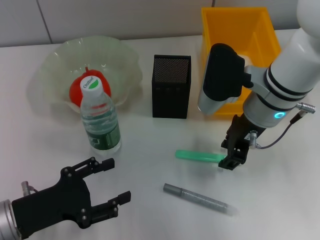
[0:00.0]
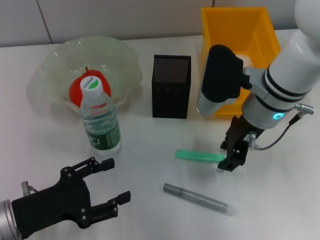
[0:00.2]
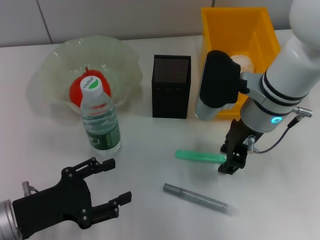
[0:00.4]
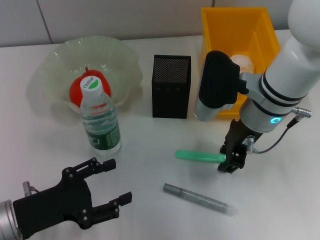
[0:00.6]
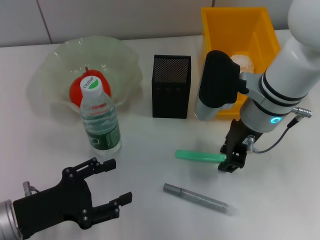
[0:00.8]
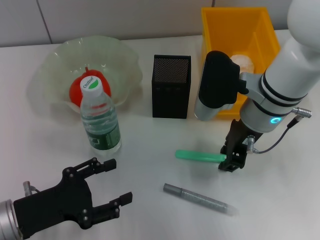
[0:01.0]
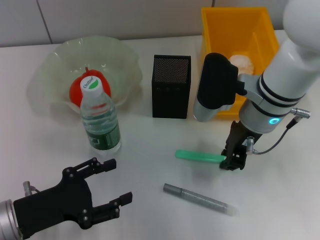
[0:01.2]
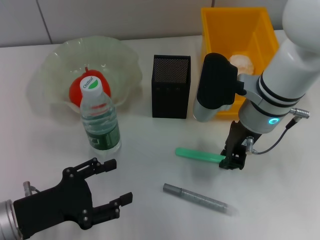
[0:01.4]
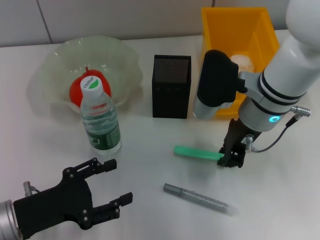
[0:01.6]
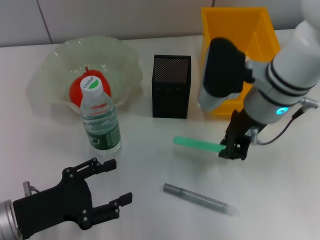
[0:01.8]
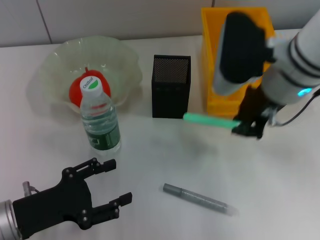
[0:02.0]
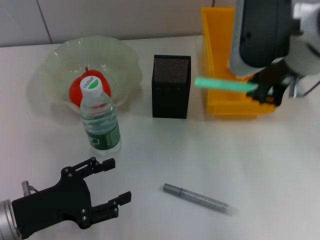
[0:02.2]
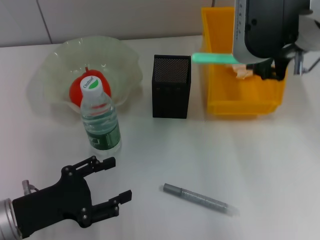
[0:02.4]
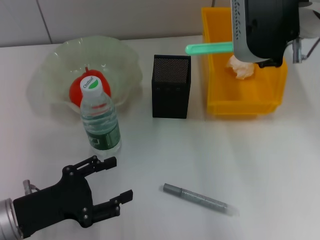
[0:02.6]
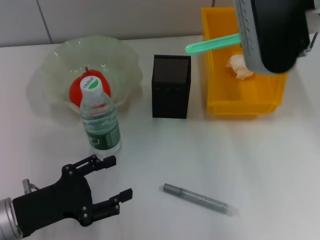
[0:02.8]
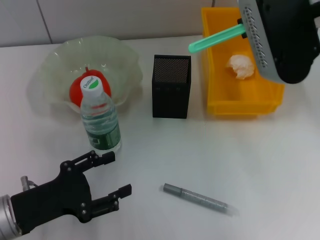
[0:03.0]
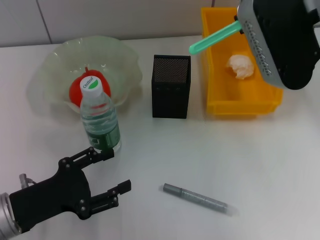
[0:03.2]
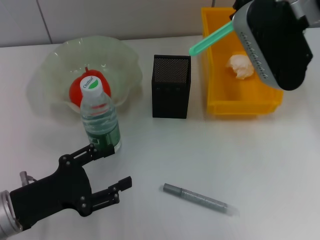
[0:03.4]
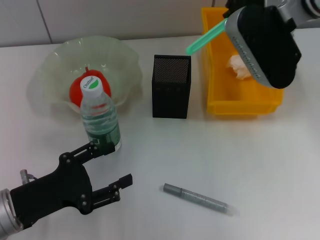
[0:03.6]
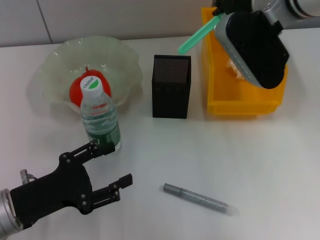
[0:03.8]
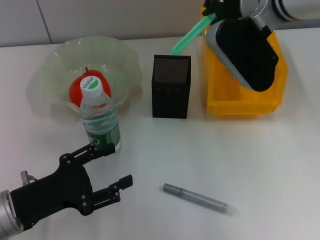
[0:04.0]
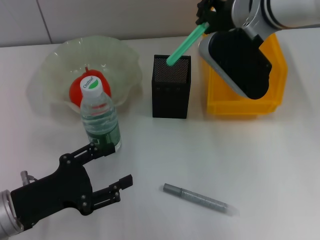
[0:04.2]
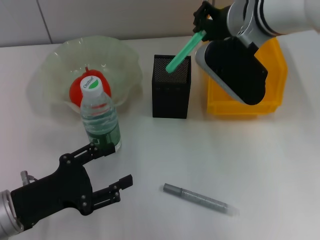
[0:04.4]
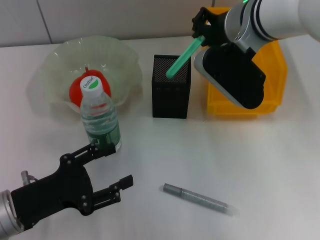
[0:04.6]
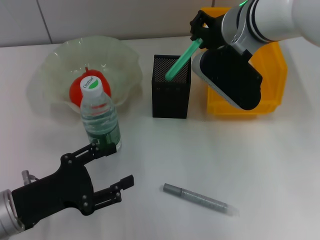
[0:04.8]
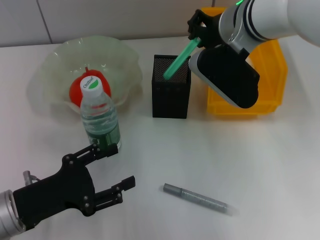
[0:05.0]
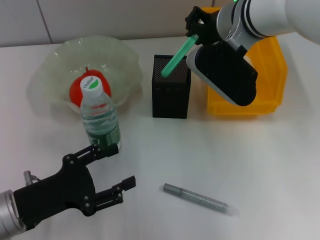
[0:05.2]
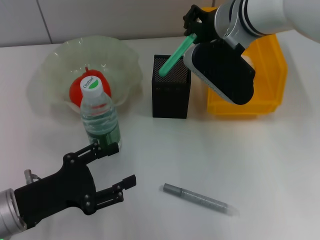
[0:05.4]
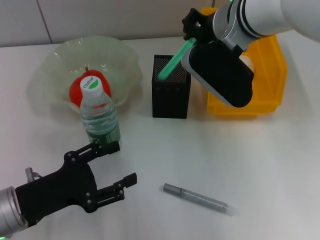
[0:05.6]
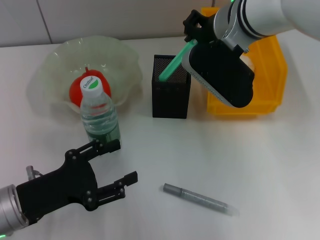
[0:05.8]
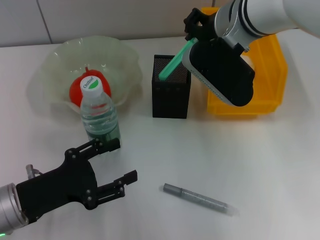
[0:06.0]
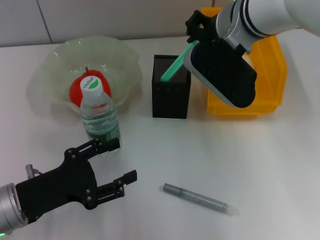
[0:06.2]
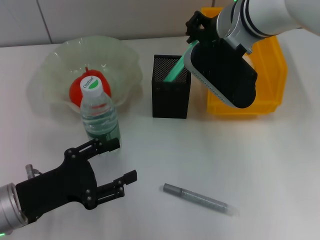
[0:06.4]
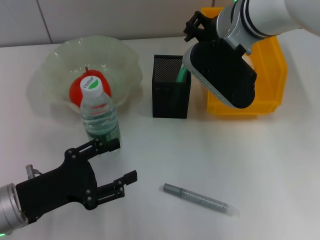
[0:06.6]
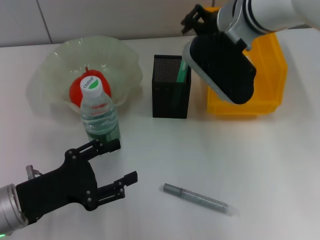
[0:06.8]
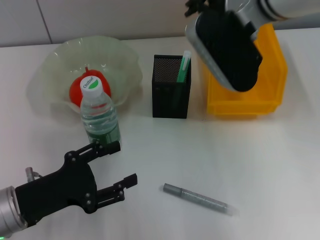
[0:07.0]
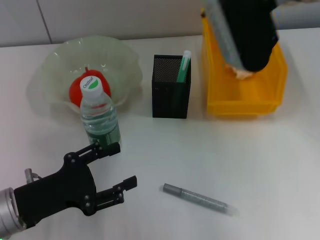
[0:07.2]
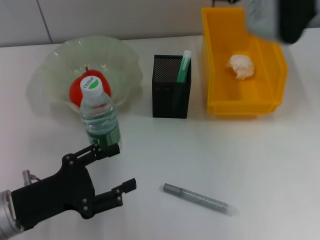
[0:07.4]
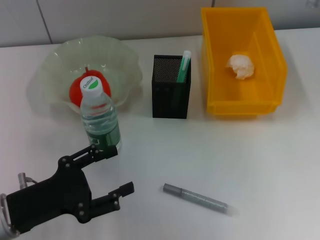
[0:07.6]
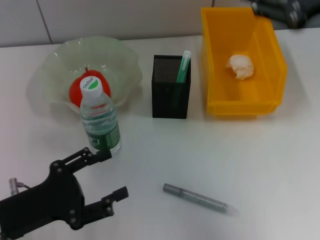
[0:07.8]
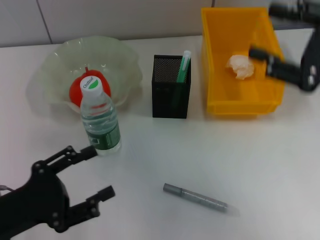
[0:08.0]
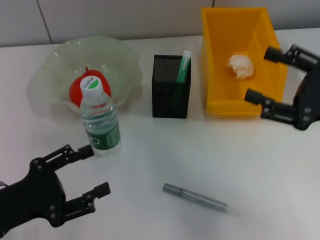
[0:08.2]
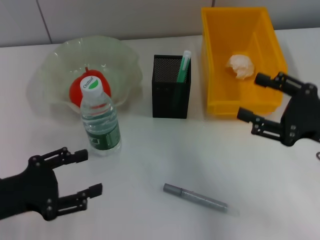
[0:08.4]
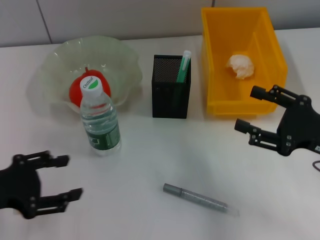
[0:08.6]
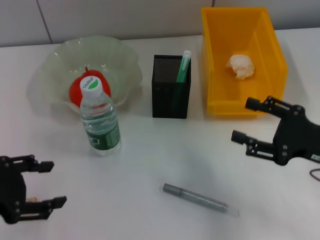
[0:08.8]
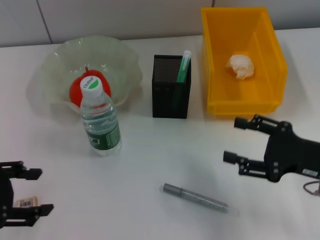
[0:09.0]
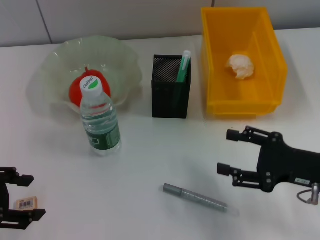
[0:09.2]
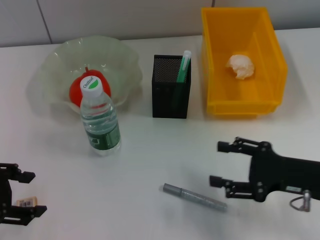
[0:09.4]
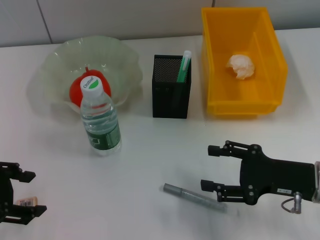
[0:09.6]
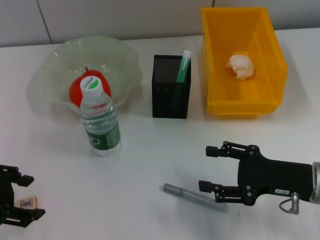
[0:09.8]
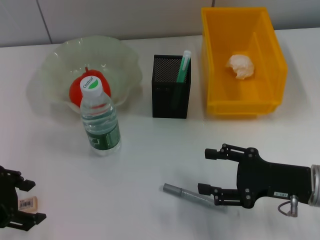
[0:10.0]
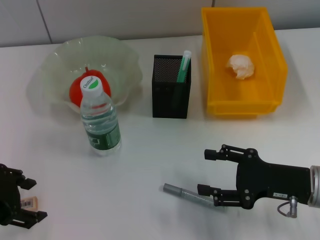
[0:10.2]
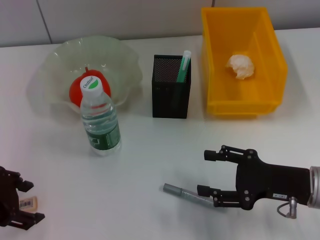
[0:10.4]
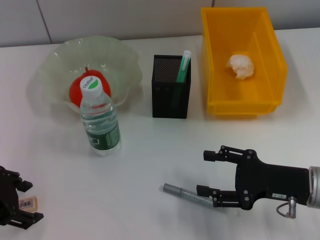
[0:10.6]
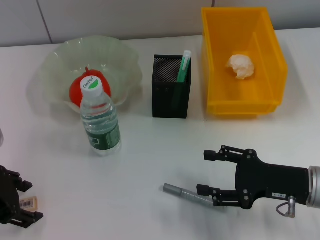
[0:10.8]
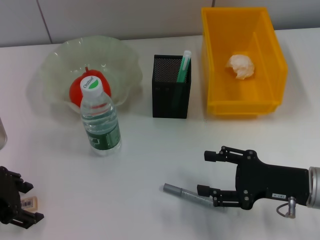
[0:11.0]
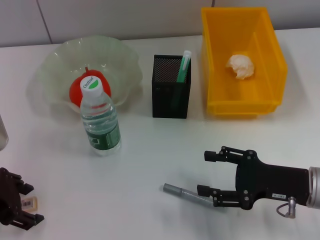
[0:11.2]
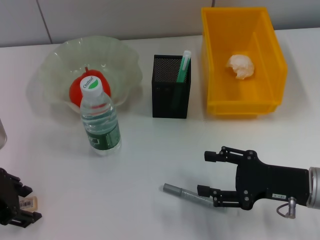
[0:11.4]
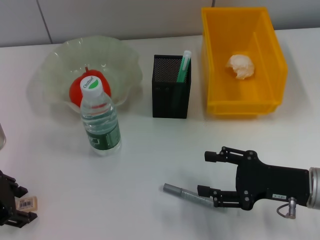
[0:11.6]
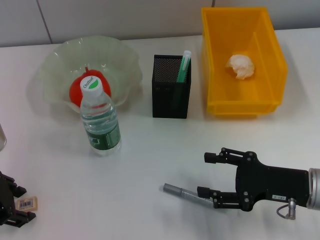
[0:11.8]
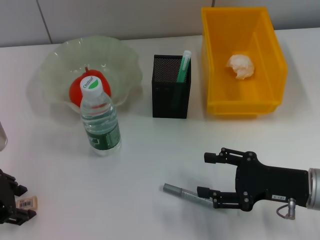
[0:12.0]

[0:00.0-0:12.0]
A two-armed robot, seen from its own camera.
Step, 0:01.6 to 0:06.8: Place the blue utility knife into the pen holder with the right hand.
0:00.0 to 0:01.6: The right gripper closes its fingers.
0:01.6 to 0:03.0: The right gripper heads upward, covering approximately 15 cm.
0:03.0 to 0:04.4: The right gripper heads downward and forward, covering some 10 cm.
0:04.4 to 0:06.0: The grippers stay close to where they were, moving slightly.
0:06.0 to 0:07.6: The right gripper shifts roughly 15 cm upward, to the right and backward, and opens its fingers.
0:07.6 to 0:09.0: The right gripper heads downward, covering some 25 cm. Meanwhile the left gripper moves upward and to the left, roughly 10 cm.
0:09.0 to 0:10.4: The left gripper shifts by some 5 cm.
0:10.4 to 0:12.0: There are only small adjustments of the grippers.

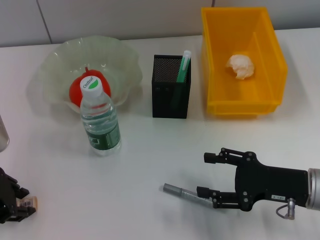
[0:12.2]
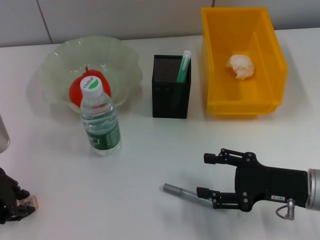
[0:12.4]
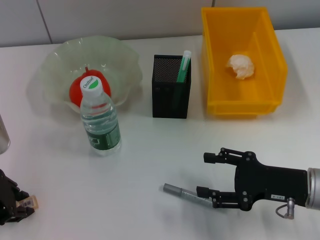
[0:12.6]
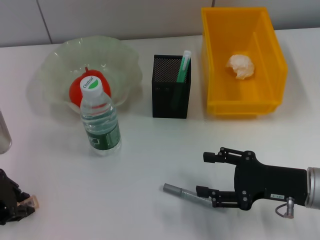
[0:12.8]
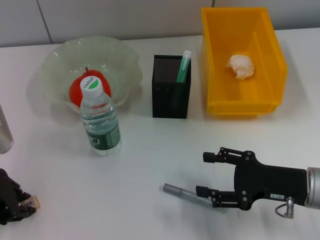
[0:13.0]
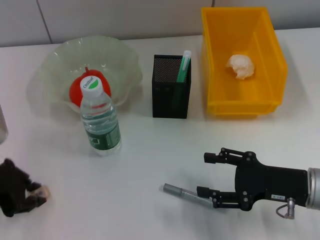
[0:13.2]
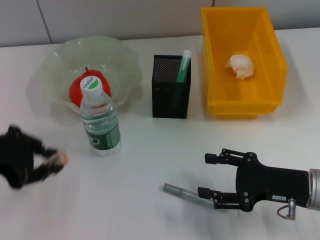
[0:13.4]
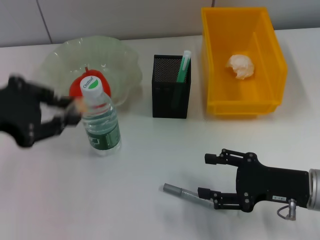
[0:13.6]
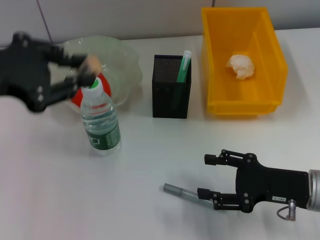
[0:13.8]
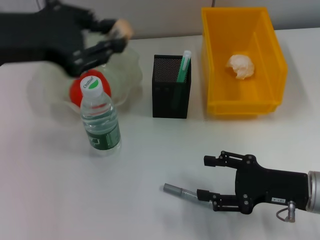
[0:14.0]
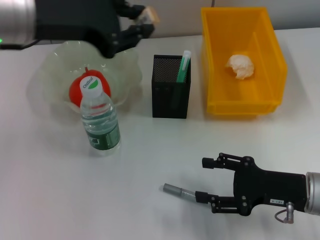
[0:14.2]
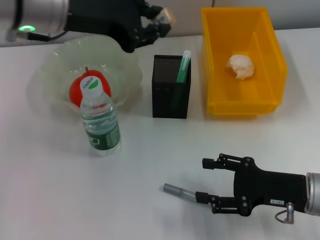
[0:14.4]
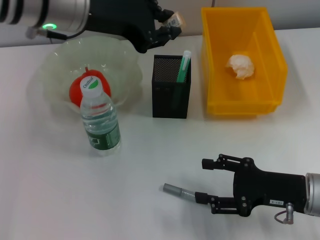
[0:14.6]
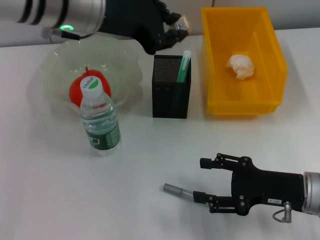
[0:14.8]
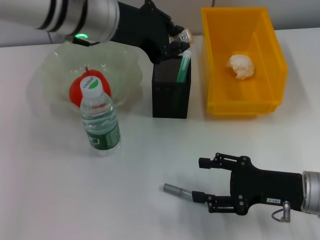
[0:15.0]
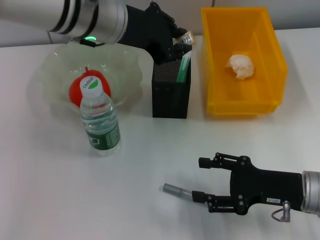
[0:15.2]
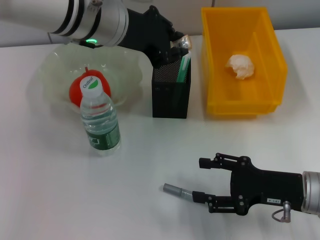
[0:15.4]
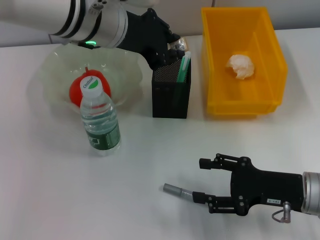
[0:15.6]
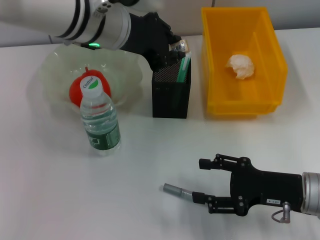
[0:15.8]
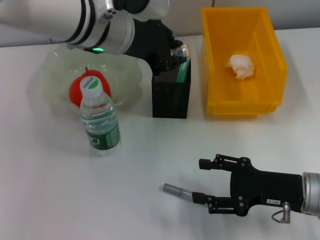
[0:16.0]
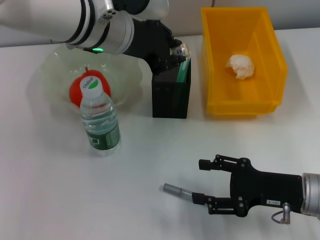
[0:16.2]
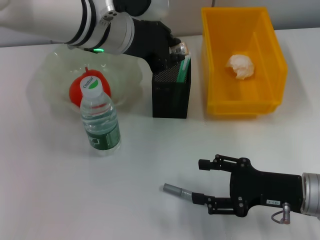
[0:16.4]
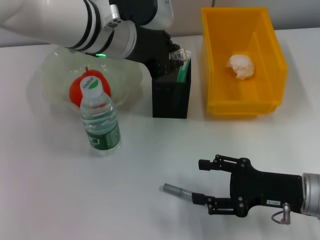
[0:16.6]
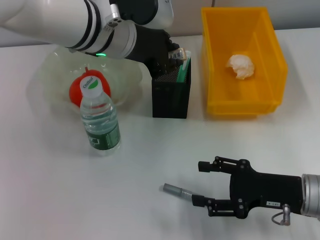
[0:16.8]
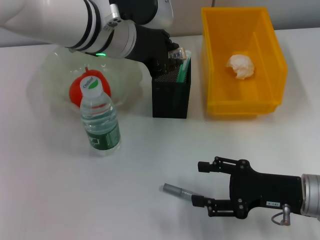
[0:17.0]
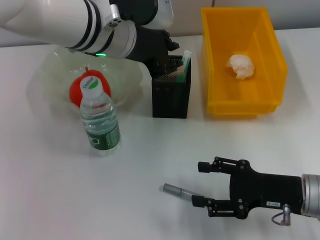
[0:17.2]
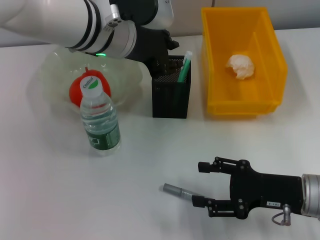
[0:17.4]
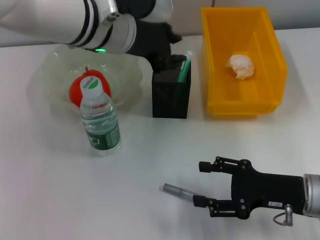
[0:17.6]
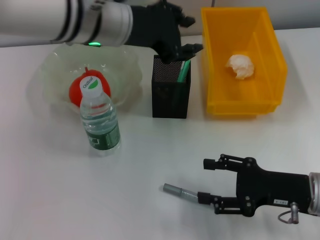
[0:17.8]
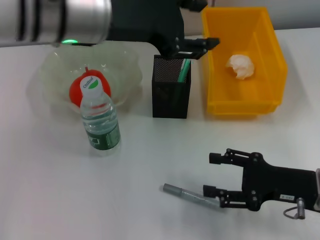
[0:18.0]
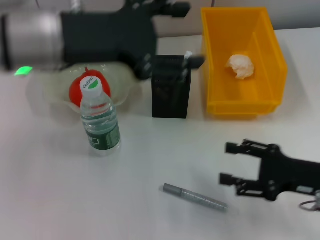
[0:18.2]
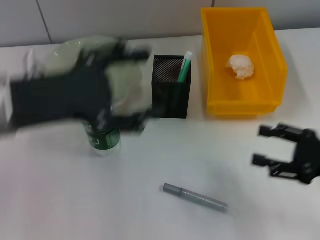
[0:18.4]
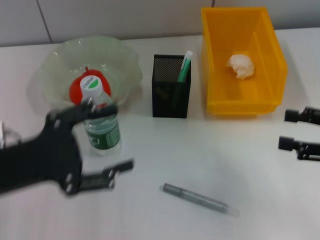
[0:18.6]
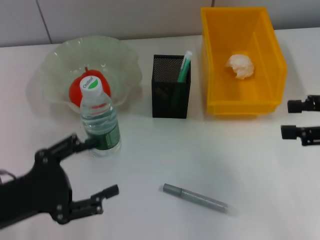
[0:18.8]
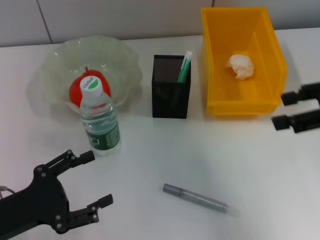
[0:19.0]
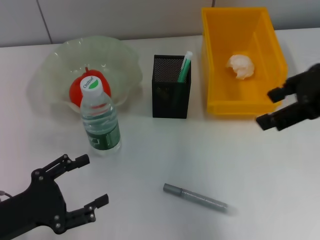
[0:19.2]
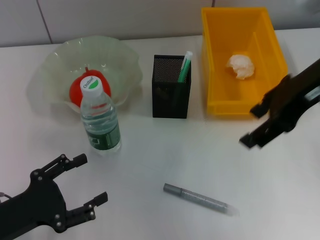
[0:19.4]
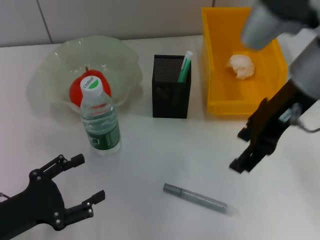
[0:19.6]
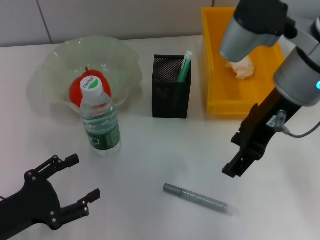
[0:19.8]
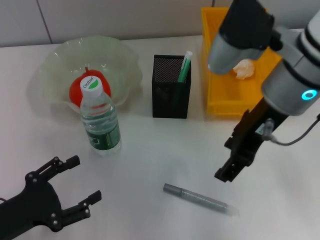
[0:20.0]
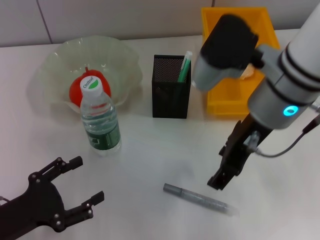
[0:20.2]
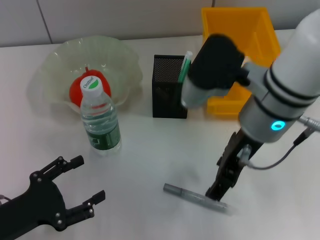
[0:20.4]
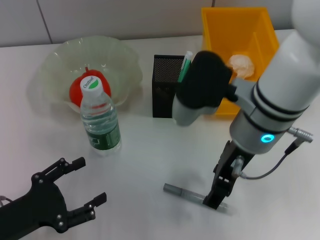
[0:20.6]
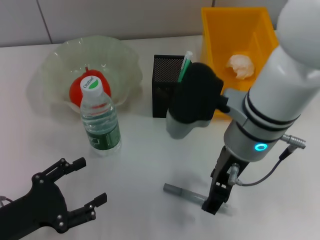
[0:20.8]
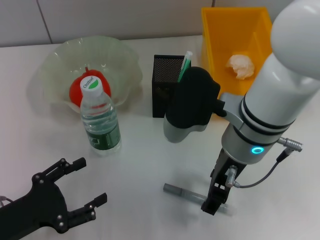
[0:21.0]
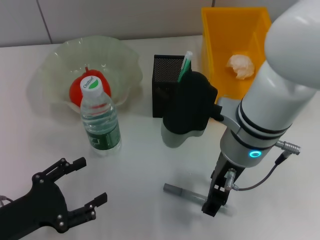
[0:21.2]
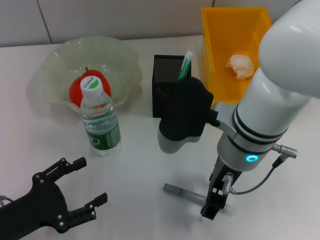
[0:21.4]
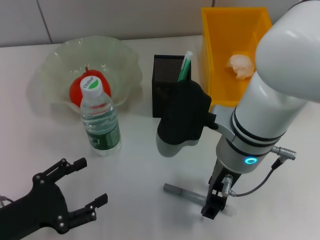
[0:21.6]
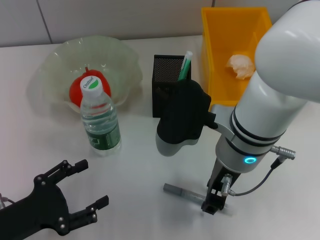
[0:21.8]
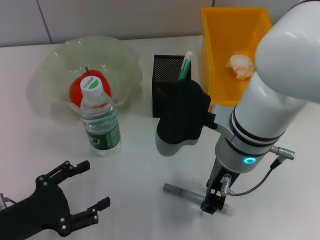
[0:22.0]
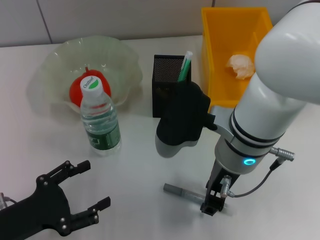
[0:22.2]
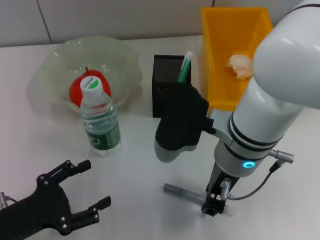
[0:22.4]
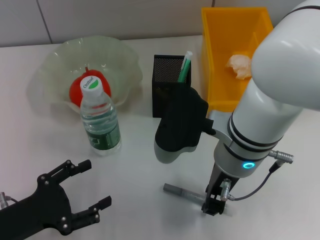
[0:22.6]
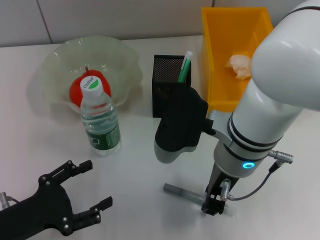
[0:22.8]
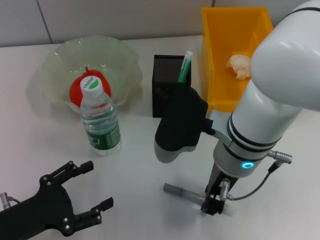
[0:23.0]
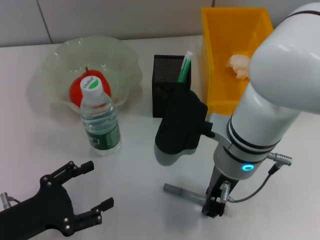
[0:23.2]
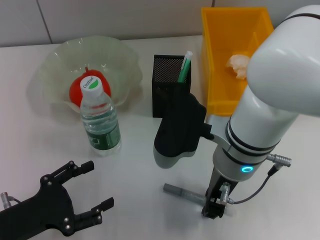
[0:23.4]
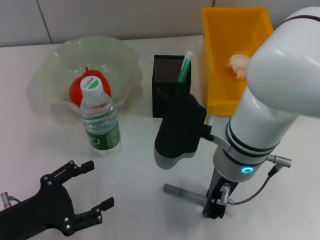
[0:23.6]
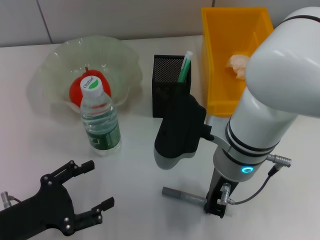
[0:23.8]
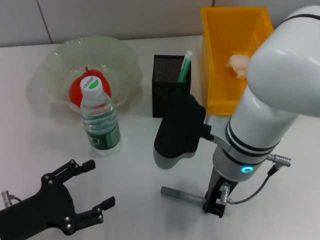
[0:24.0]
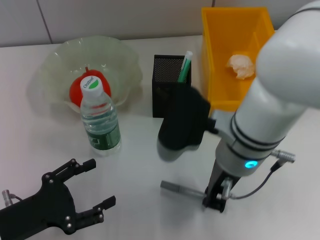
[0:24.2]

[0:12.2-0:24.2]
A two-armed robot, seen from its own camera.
Step, 0:13.0 to 0:17.4: Place the eraser into the pen holder with the left hand.
Step, 0:17.8 to 0:23.8: Grab the gray glue with the right hand.
0:12.2 to 0:13.8: The left gripper travels upward by some 15 cm, and closes its fingers.
0:13.8 to 0:15.2: The left gripper heads to the right and forward, covering some 20 cm.
0:15.2 to 0:16.6: The grippers move only a little.
0:16.6 to 0:18.2: The left gripper goes some 10 cm to the left and backward, and opens up.
0:18.2 to 0:19.8: The left gripper travels downward, to the left and backward by approximately 30 cm. Meanwhile the right gripper is displaced upward, to the left and forward by some 25 cm.
0:19.8 to 0:21.2: The right gripper heads downward and to the left, covering some 10 cm.
0:21.2 to 0:22.6: The right gripper closes.
0:22.6 to 0:24.2: The right gripper closes up.
